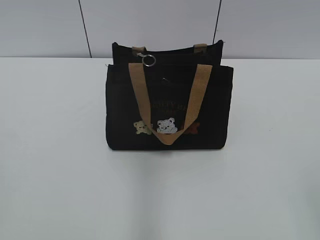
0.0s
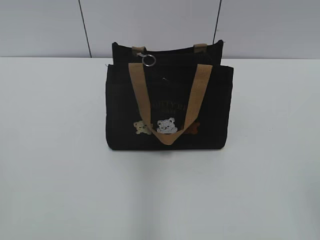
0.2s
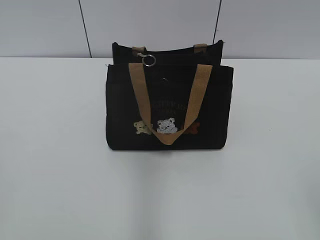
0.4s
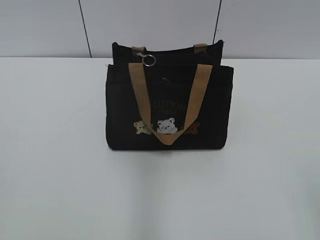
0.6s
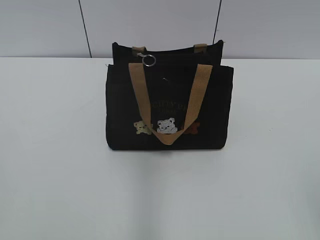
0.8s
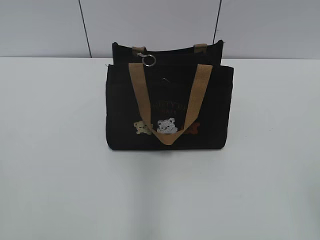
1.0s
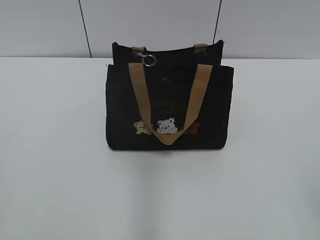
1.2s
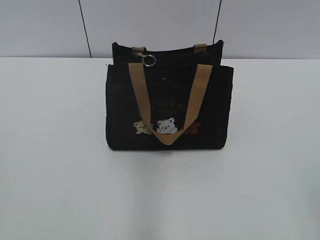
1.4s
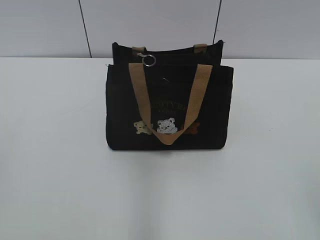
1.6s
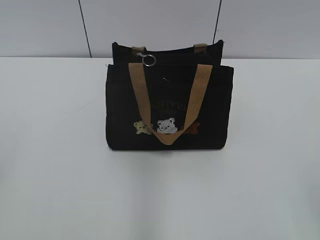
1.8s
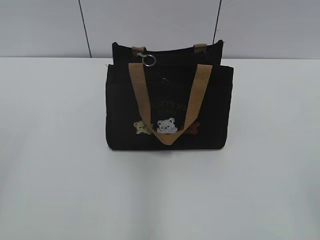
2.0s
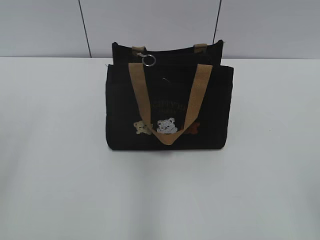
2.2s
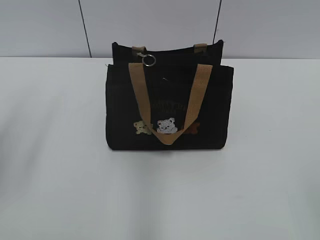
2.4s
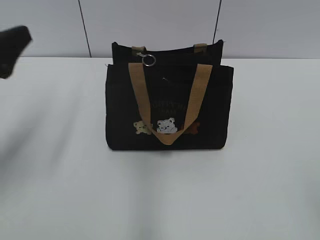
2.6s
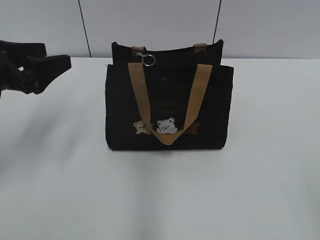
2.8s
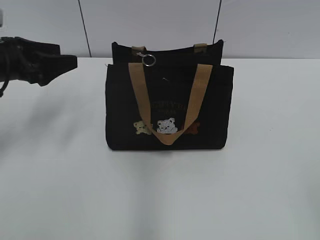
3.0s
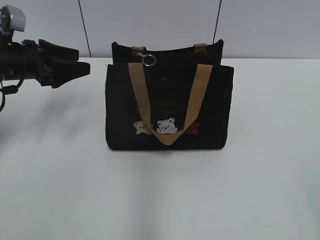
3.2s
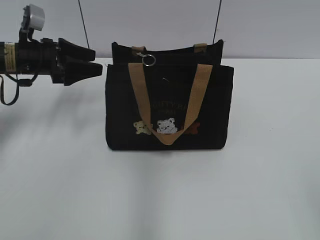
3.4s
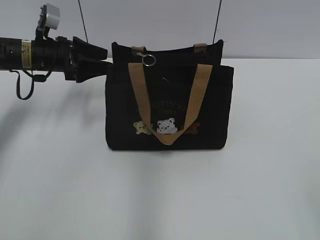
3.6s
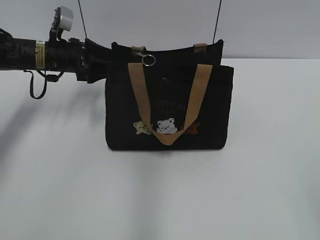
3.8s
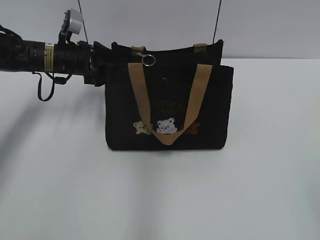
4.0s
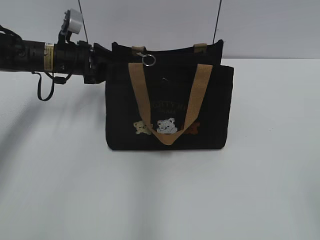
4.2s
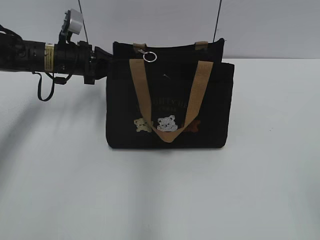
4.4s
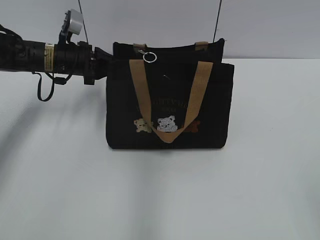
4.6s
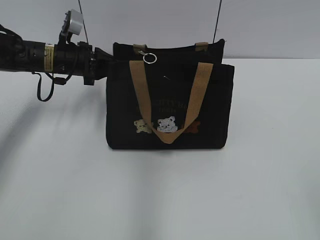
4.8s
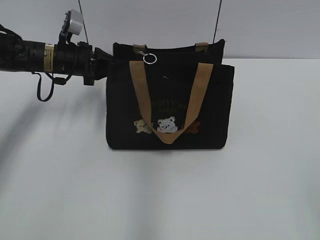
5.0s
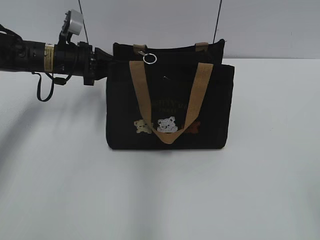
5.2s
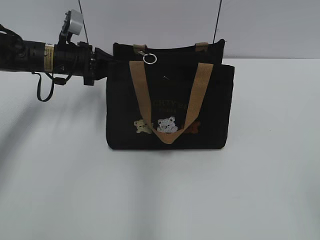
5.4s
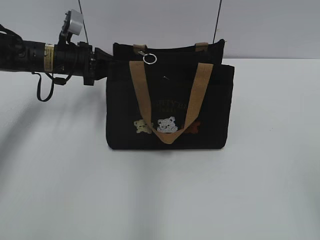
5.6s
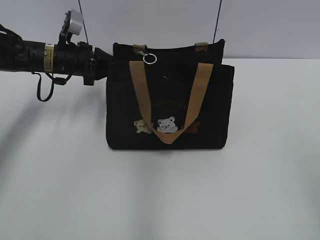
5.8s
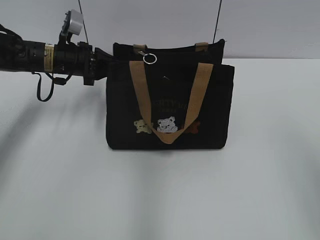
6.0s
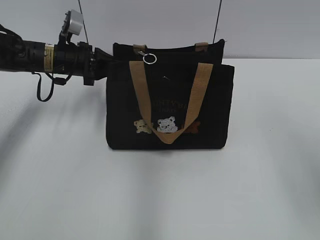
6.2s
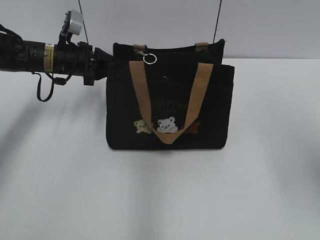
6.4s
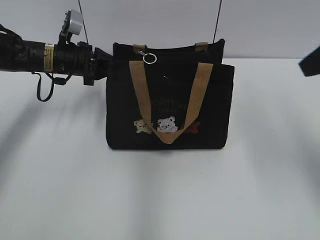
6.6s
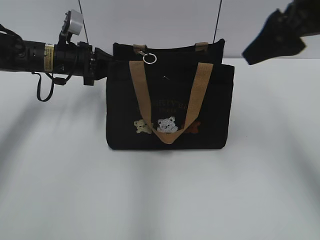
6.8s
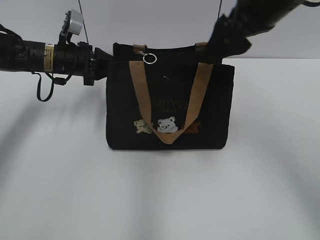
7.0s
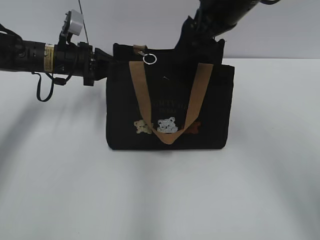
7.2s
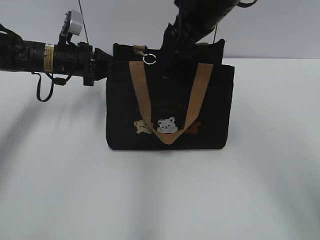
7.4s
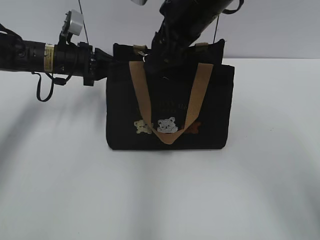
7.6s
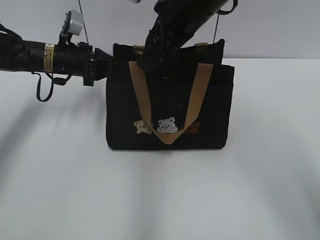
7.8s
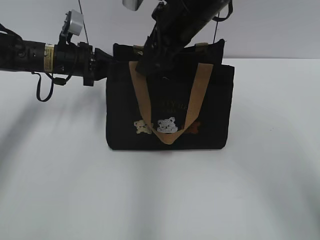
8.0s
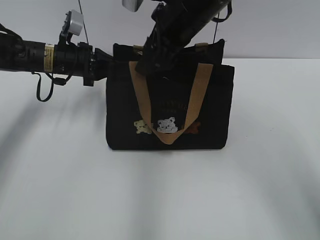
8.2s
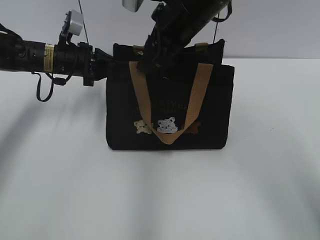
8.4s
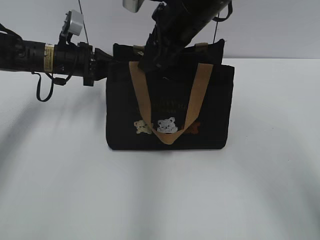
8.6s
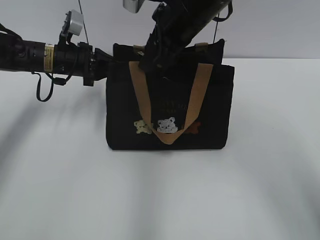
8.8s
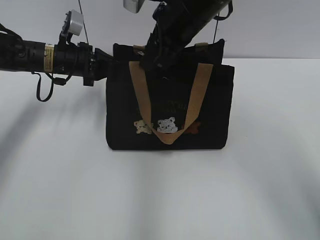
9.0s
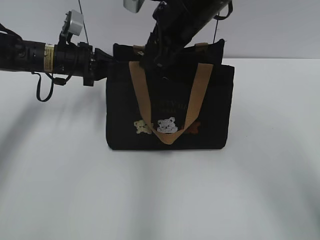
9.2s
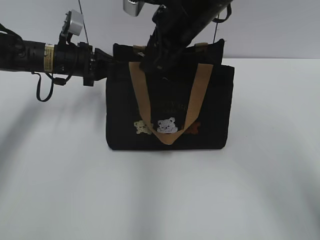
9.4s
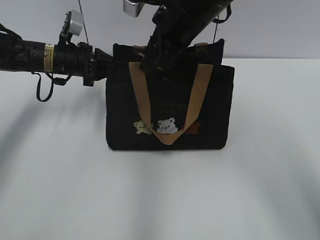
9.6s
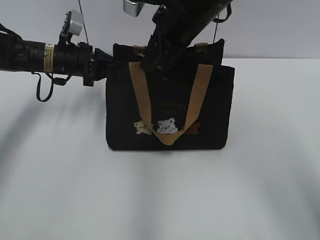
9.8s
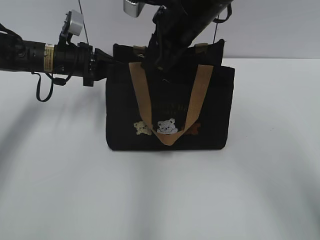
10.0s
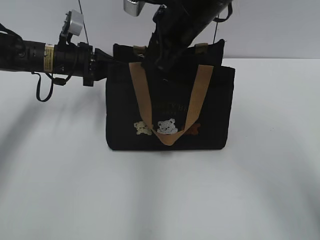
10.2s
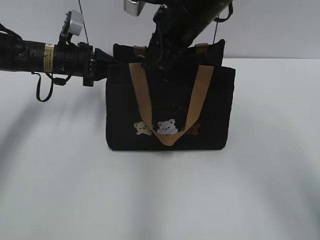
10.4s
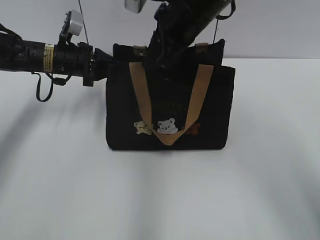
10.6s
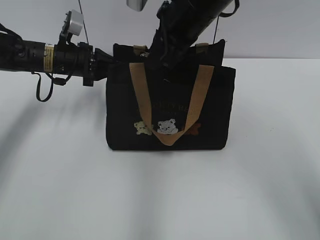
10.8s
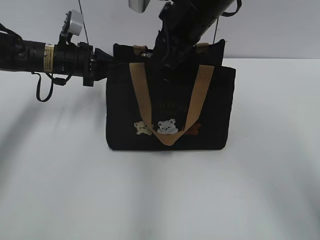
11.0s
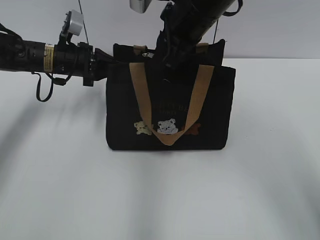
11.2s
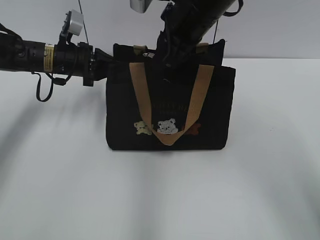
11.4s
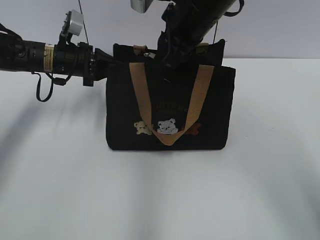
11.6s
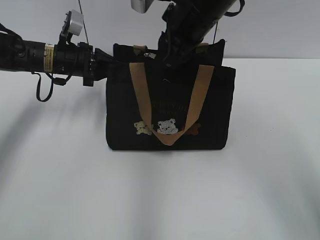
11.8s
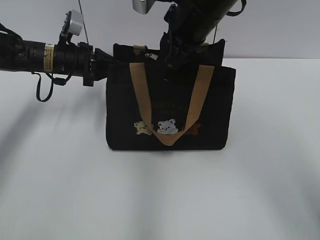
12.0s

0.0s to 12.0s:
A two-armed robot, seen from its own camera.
1.6s to 3.0s: The left gripper goes approximately 35 cm forward, and opens its fingers.
3.0s to 4.4s: The left gripper moves forward and to the right, some 15 cm, and closes up.
4.4s to 6.0s: The right gripper is displaced forward and upward by roughly 10 cm.
6.0s to 7.6s: The right gripper moves forward and to the left, roughly 35 cm, and opens its fingers.
7.6s to 9.0s: The right gripper closes up.
9.0s to 10.4s: The right gripper closes up.
10.4s to 12.0s: The grippers stay close to where they were, moving slightly.

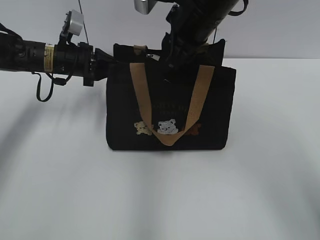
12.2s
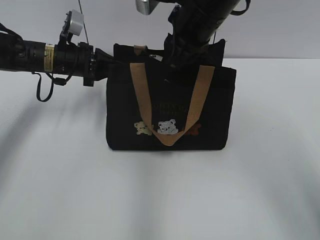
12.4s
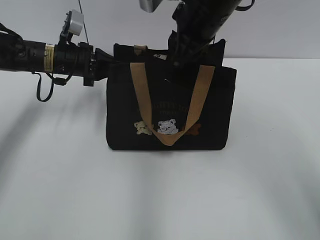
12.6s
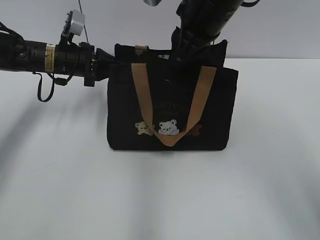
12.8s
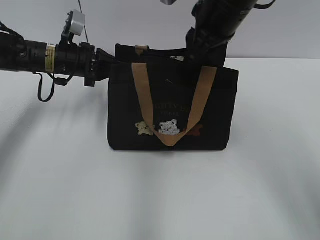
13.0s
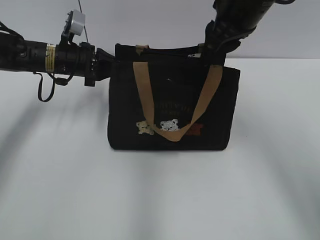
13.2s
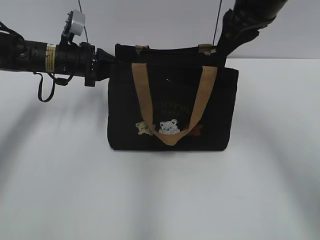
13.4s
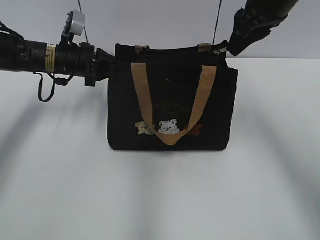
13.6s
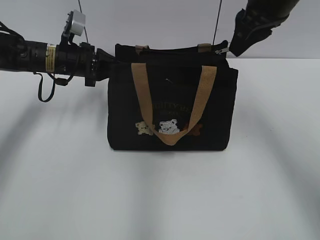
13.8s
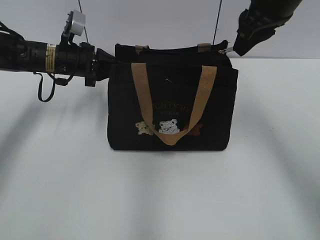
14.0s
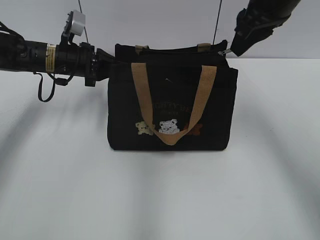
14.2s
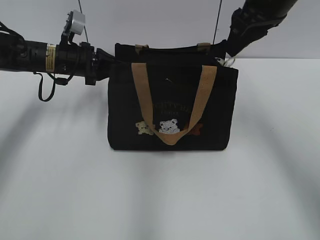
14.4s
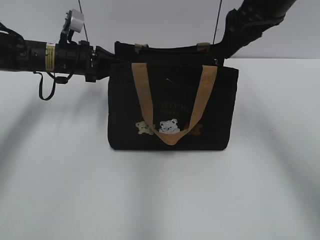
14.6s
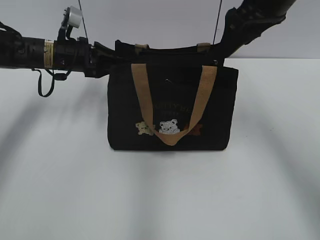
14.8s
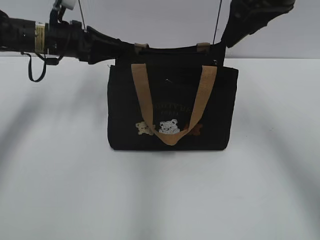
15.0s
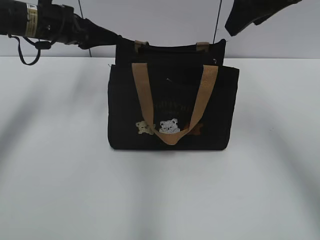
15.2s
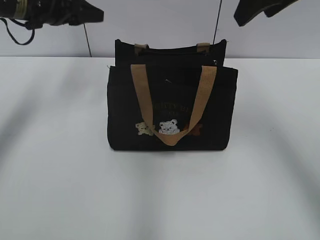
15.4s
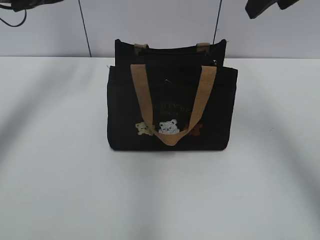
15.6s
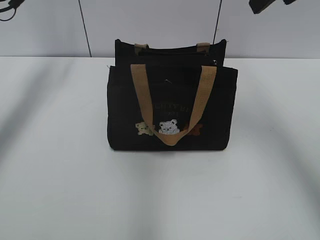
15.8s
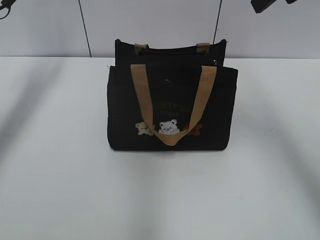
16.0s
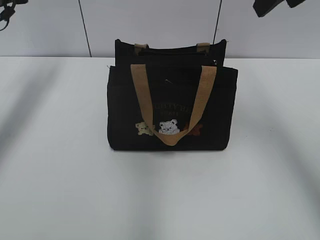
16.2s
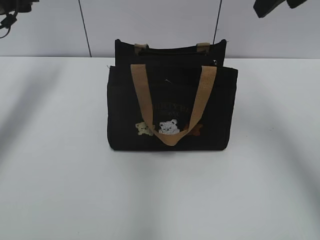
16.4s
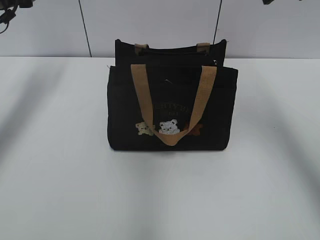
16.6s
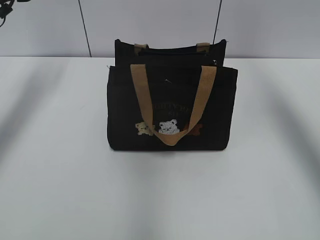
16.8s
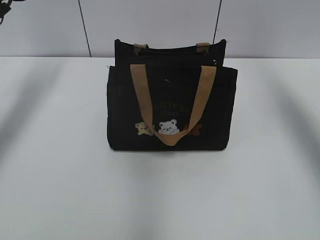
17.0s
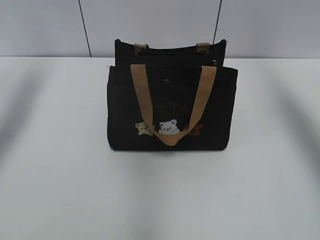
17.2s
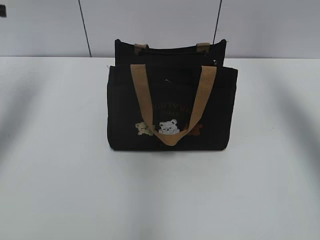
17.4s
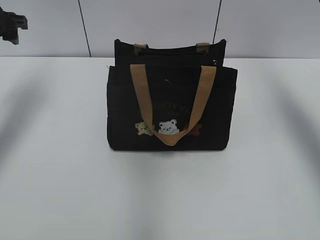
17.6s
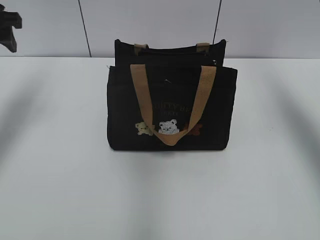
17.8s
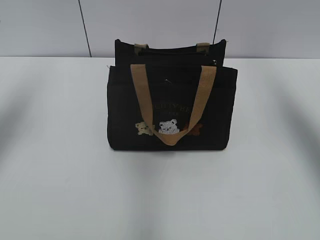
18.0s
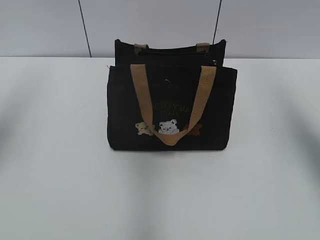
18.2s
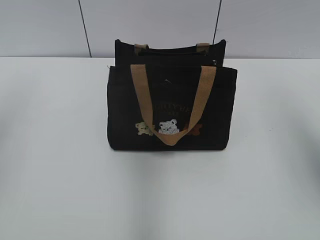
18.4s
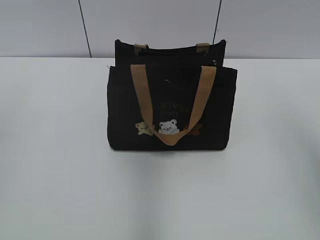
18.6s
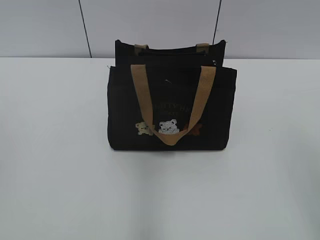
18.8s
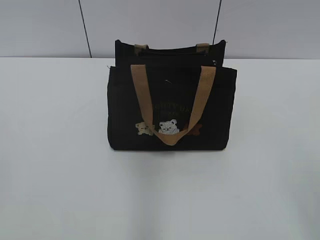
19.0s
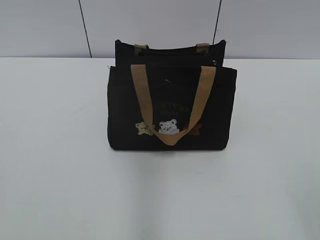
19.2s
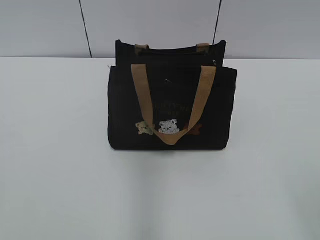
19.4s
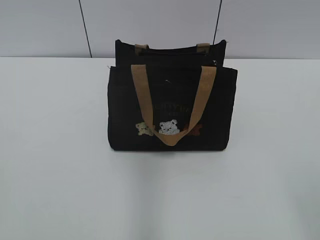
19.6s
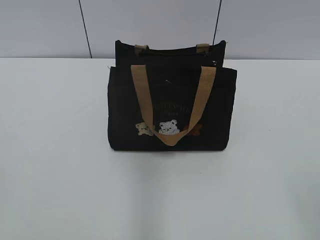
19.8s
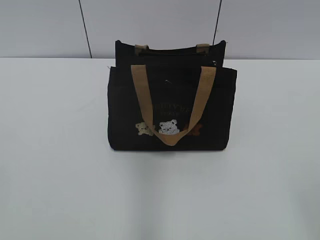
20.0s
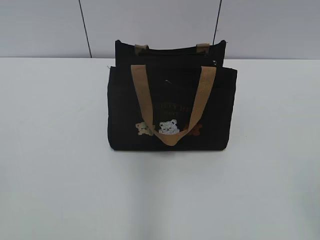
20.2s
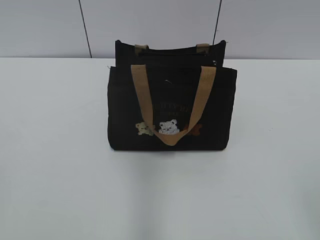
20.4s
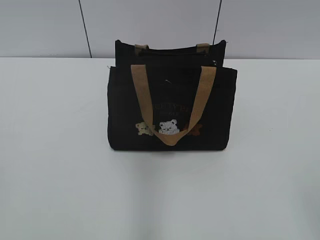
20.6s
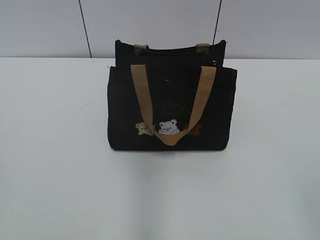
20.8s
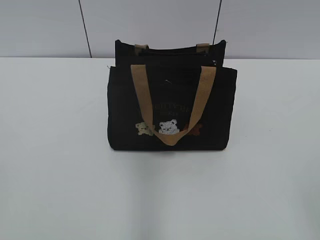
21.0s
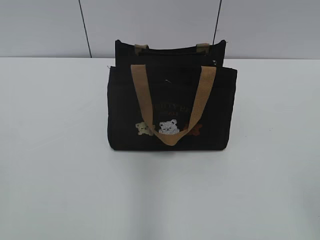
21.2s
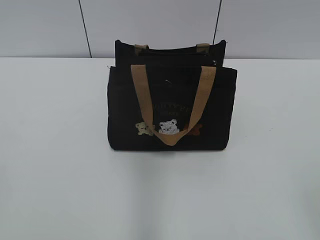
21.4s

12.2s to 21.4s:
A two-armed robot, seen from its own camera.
Step, 12.2s to 14.4s: Pull open the zipper with your right hand.
Step, 14.6s to 15.2s: Hold the bag with your left hand.
12.2s to 13.8s: The right gripper heads to the right, covering about 10 cm.
13.8s to 15.2s: The right gripper opens up. The left gripper travels upward by roughly 5 cm, and opens up.
15.2s to 16.8s: The right gripper travels to the right by roughly 10 cm; the left gripper moves to the left and upward, some 10 cm.
16.8s to 18.4s: The left gripper is displaced backward by about 25 cm. Meanwhile the right gripper goes roughly 15 cm backward.
18.4s to 19.8s: The right gripper heads backward and downward, covering some 25 cm.

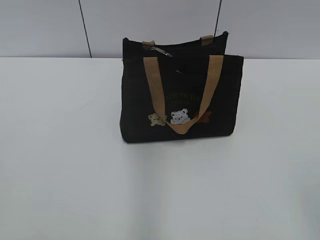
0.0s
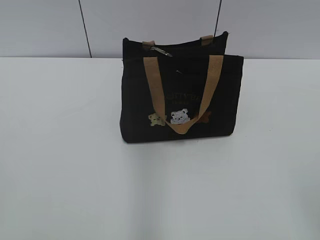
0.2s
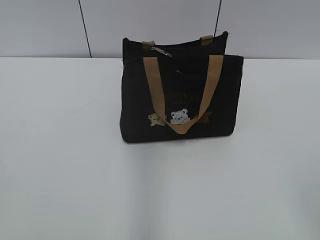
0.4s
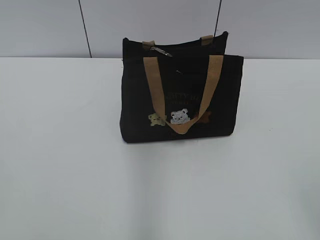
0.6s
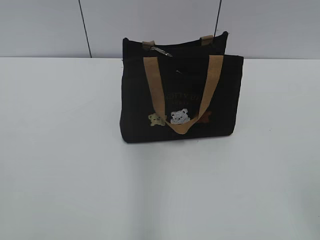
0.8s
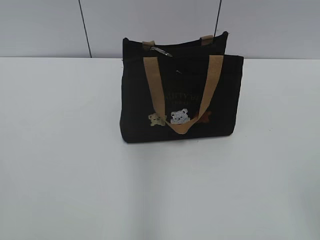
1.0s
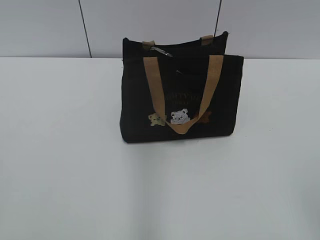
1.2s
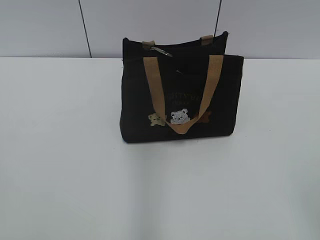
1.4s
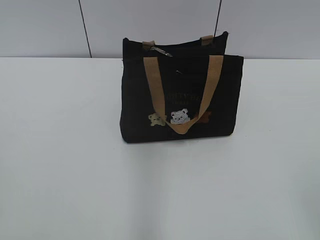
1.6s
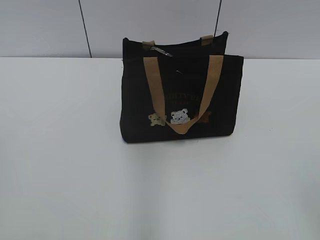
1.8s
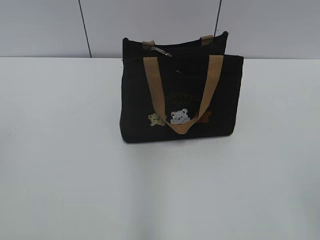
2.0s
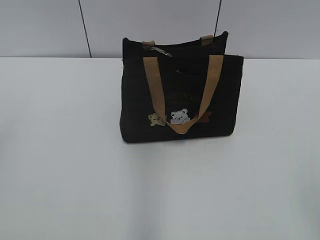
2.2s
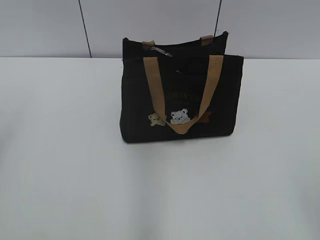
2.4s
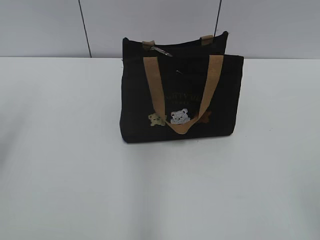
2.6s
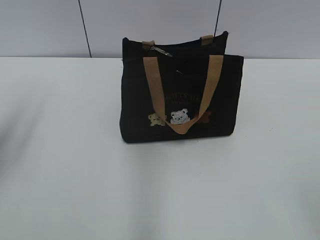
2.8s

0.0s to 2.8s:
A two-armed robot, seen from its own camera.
1.4s to 2.8s: The left gripper moves forward, about 20 cm.
